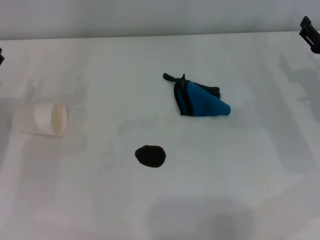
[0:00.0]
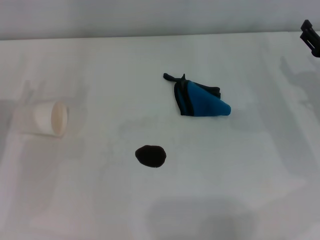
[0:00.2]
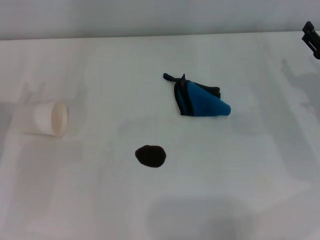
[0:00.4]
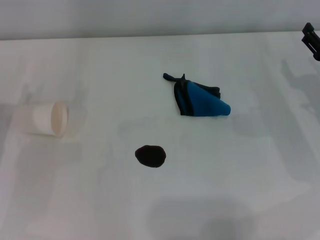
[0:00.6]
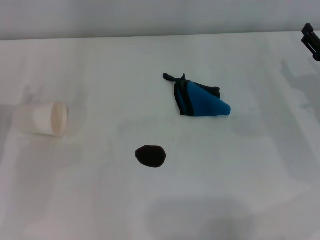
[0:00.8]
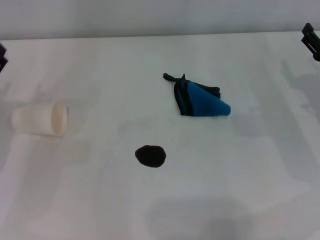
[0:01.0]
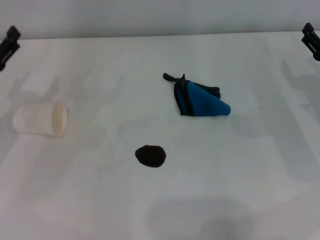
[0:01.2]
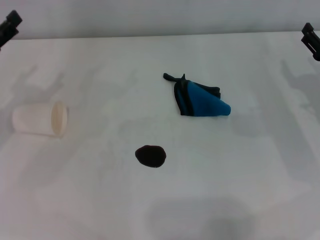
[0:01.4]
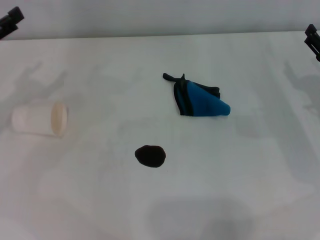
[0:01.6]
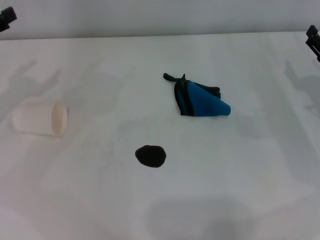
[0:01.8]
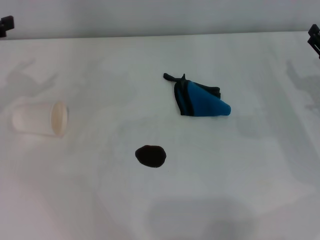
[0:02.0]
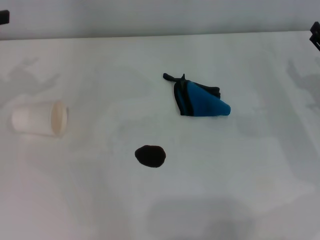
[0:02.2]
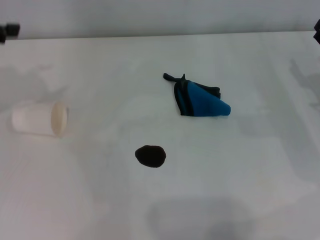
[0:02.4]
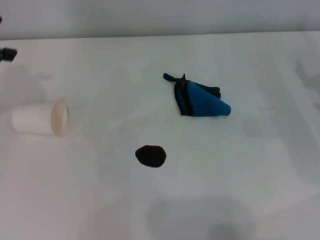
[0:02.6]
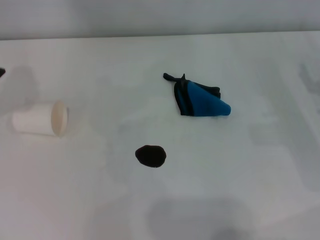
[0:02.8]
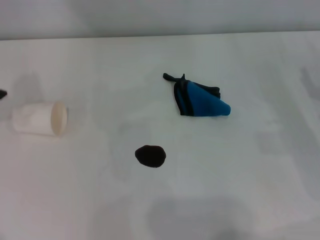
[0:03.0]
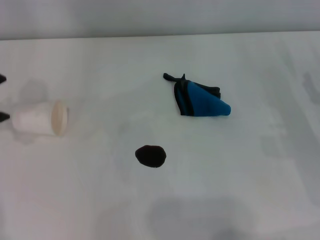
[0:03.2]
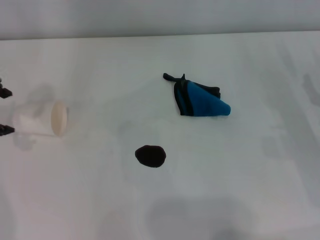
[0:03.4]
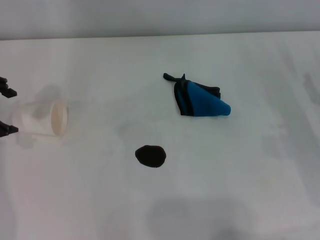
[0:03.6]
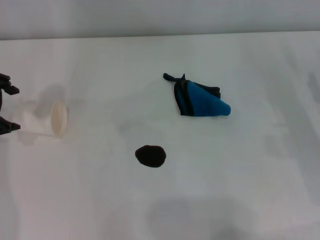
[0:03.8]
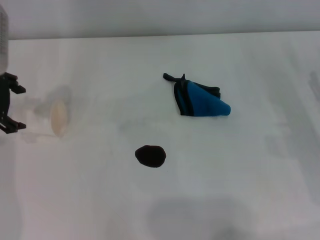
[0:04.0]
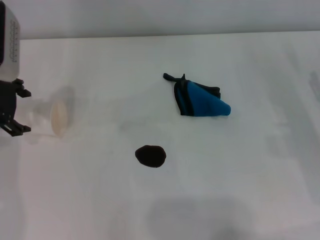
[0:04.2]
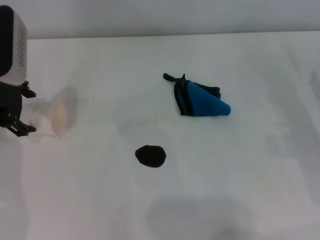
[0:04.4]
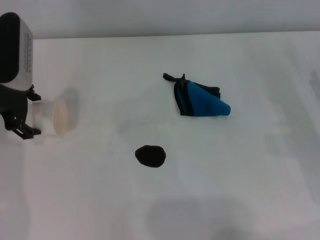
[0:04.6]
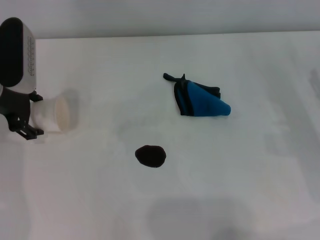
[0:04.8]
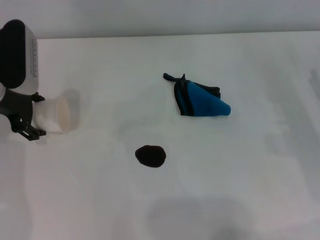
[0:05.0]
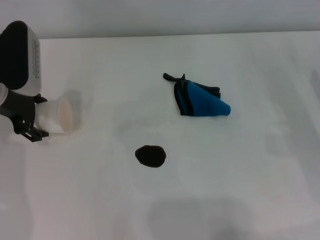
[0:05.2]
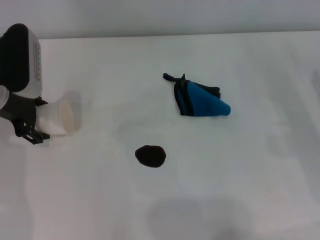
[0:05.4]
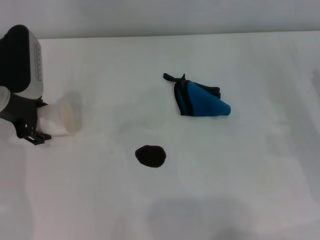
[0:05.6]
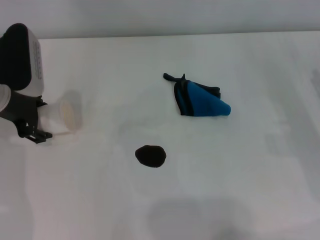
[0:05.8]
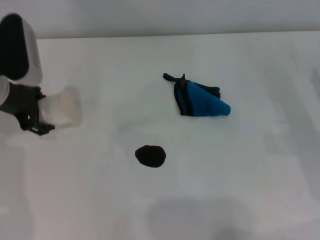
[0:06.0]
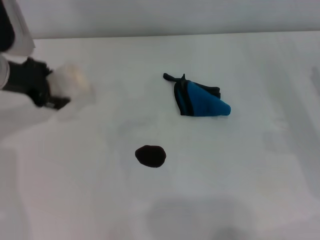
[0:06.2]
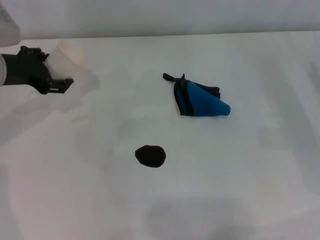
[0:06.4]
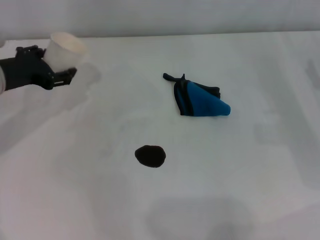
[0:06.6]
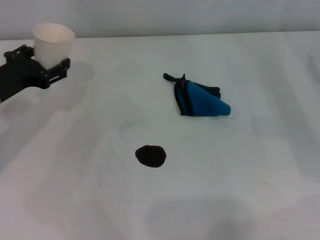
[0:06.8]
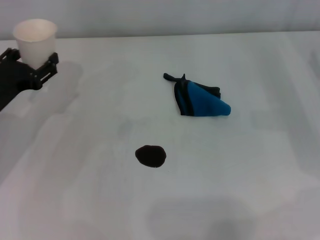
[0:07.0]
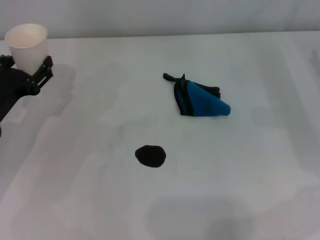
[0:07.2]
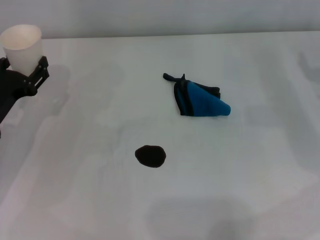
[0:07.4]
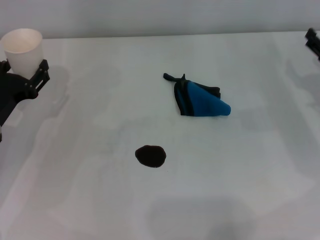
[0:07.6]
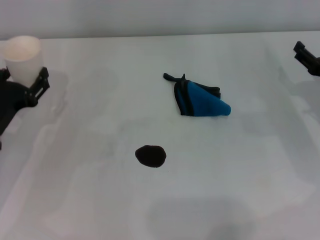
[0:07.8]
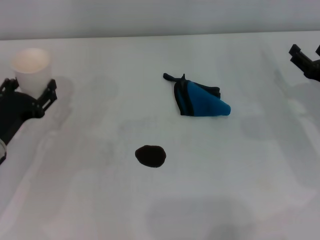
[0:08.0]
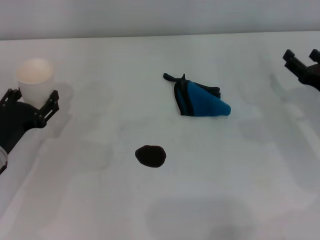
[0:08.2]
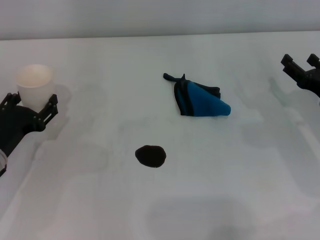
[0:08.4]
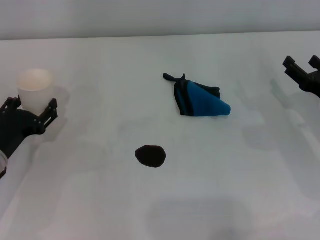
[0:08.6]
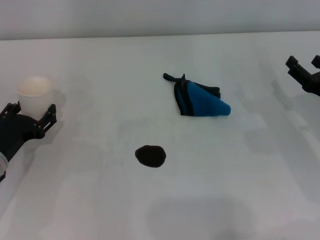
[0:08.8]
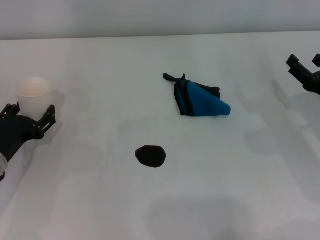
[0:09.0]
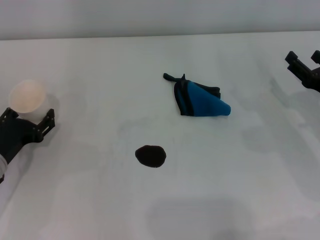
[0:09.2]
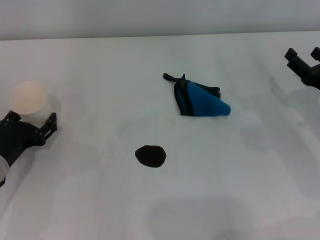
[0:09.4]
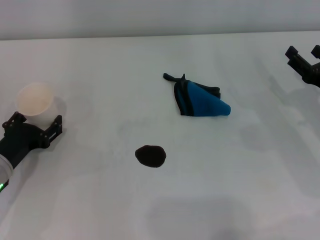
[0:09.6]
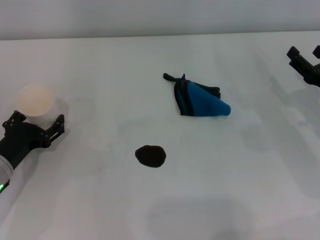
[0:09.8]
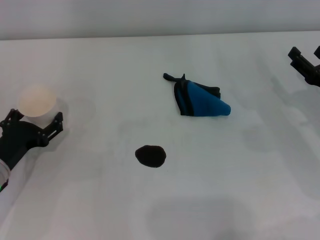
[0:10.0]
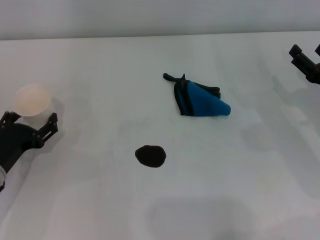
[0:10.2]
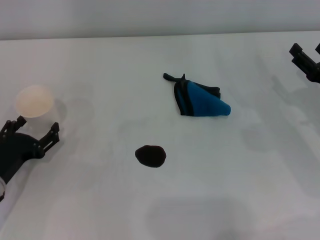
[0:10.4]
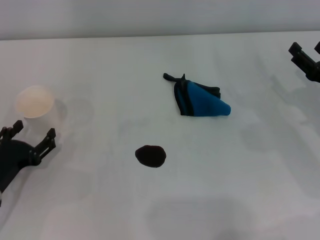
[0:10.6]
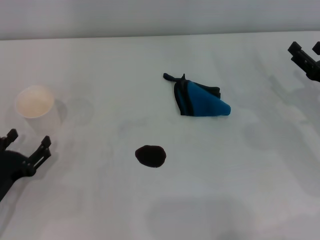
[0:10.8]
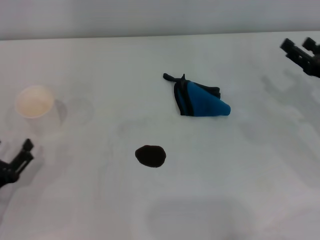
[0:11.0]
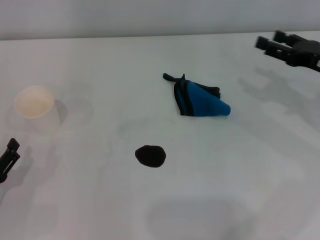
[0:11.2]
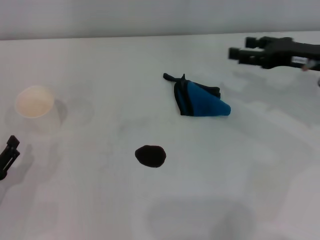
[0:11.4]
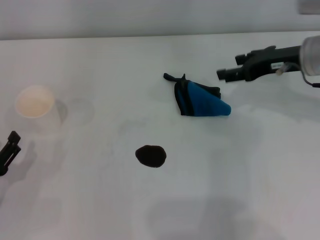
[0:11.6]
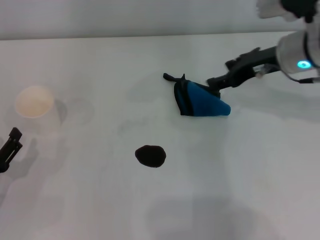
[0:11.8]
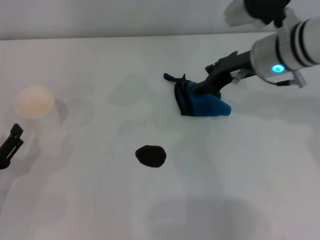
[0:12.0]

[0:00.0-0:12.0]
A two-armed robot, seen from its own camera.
Step, 0:00.0 to 0:05.6: Grasp the paper cup with the left gripper.
Step, 0:06.0 to 0:10.4: Stand the paper cup upright with the left gripper.
0:00.0 to 0:01.6: The left gripper goes some 10 cm upward.
0:01.6 to 0:03.0: The left gripper shifts about 15 cm upward.
0:03.0 to 0:04.4: The left gripper moves downward and to the right, about 10 cm.
0:04.4 to 0:06.0: The left gripper closes its fingers.
0:06.0 to 0:07.6: The left gripper shifts some 10 cm downward and backward.
0:07.6 to 0:09.0: The left gripper shifts by about 5 cm.
0:09.0 to 0:10.4: The left gripper opens up.
0:10.4 to 0:12.0: The right gripper heads to the left, upward and forward, covering some 20 cm; the left gripper is displaced backward by about 5 cm.

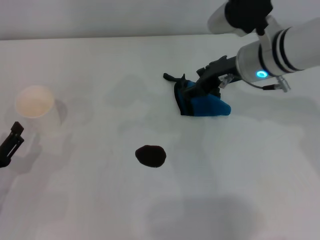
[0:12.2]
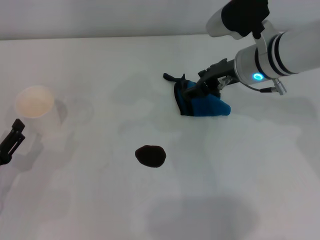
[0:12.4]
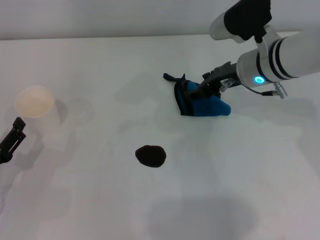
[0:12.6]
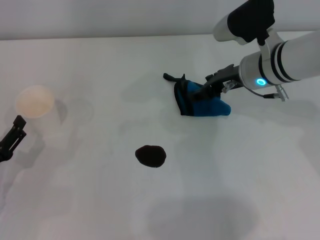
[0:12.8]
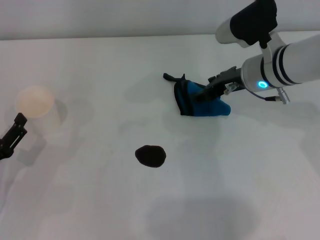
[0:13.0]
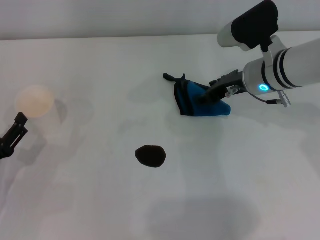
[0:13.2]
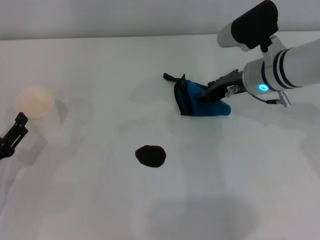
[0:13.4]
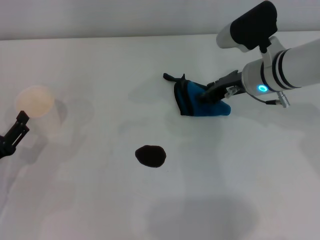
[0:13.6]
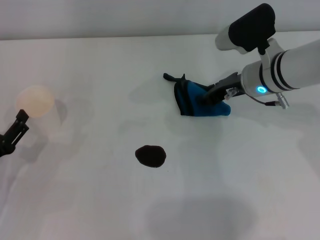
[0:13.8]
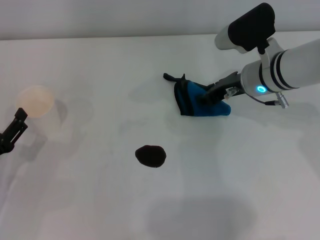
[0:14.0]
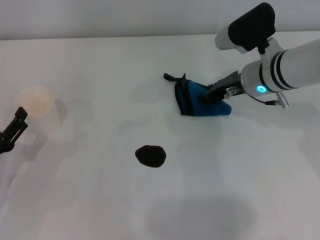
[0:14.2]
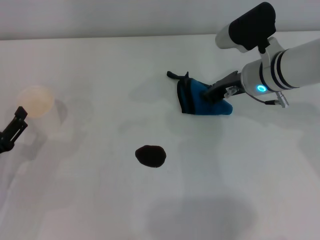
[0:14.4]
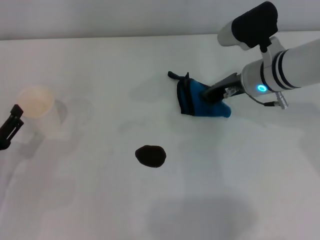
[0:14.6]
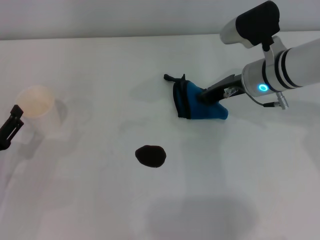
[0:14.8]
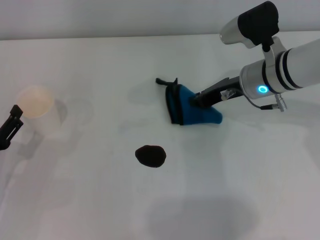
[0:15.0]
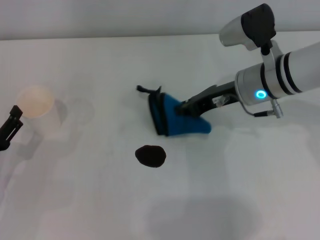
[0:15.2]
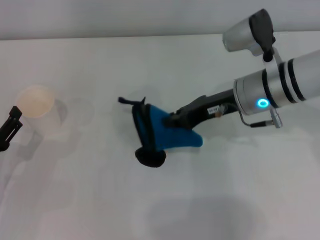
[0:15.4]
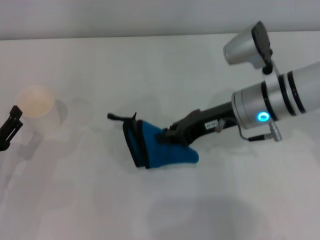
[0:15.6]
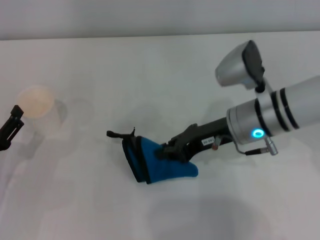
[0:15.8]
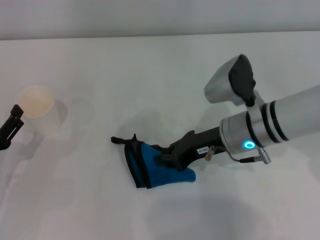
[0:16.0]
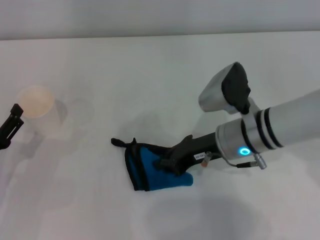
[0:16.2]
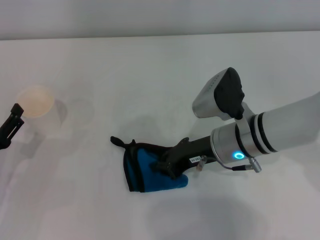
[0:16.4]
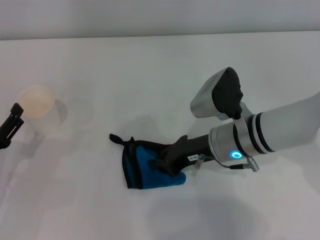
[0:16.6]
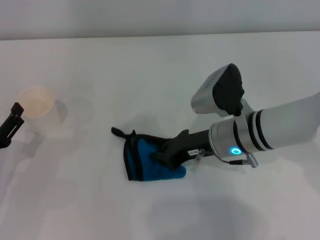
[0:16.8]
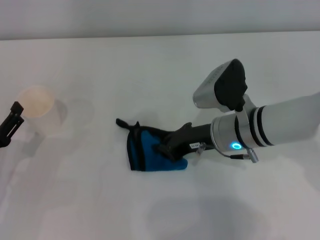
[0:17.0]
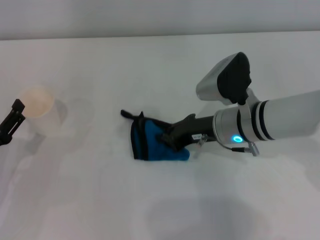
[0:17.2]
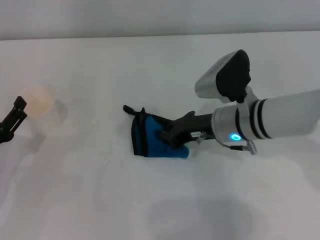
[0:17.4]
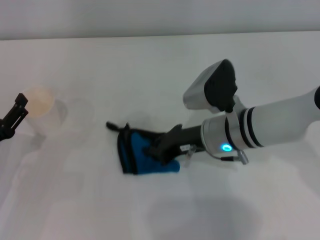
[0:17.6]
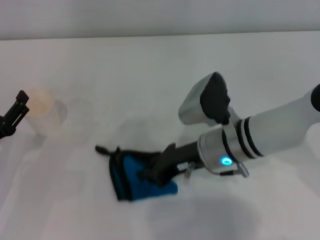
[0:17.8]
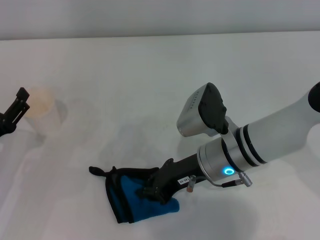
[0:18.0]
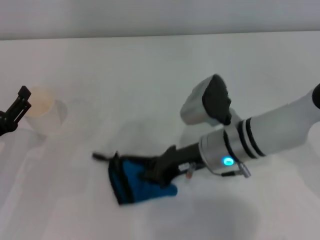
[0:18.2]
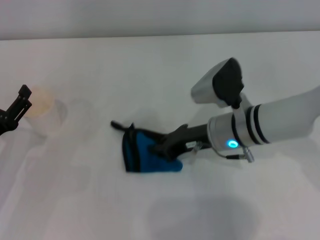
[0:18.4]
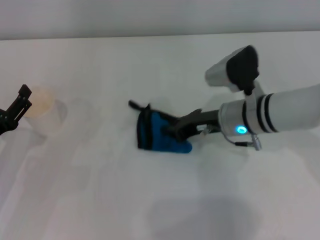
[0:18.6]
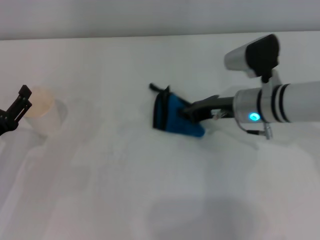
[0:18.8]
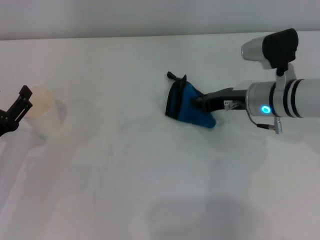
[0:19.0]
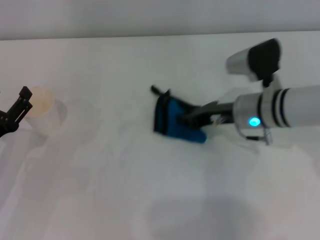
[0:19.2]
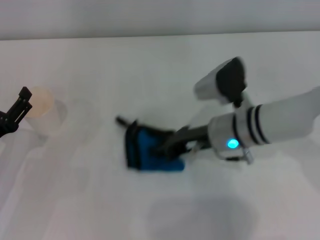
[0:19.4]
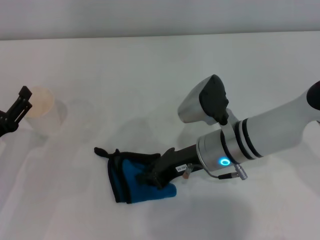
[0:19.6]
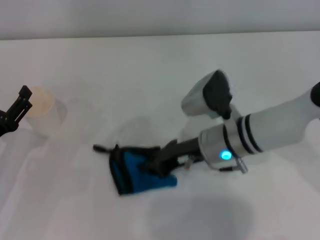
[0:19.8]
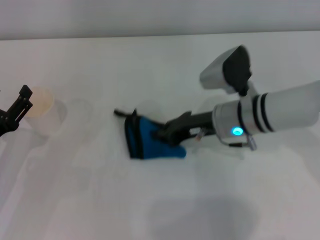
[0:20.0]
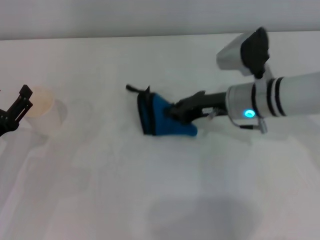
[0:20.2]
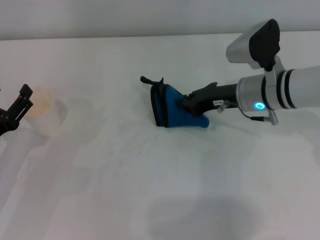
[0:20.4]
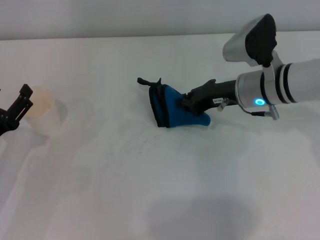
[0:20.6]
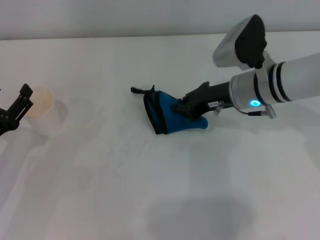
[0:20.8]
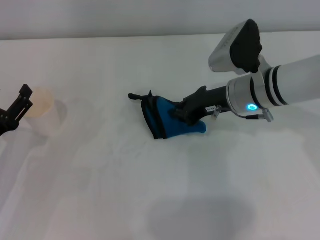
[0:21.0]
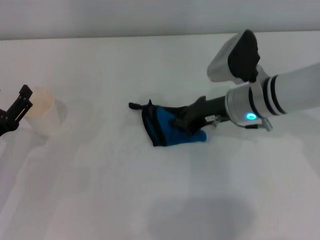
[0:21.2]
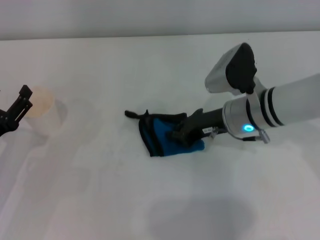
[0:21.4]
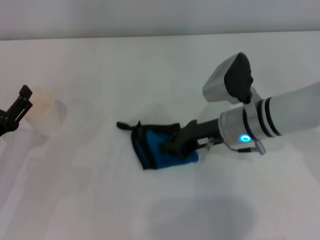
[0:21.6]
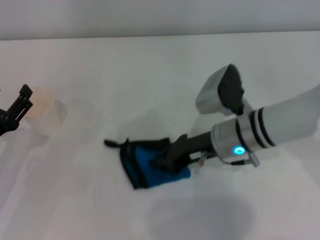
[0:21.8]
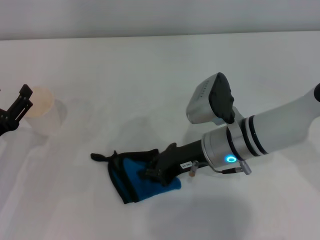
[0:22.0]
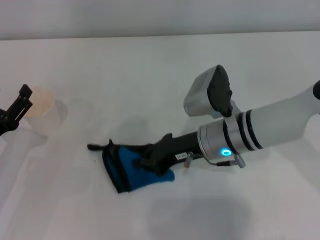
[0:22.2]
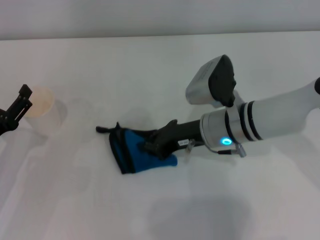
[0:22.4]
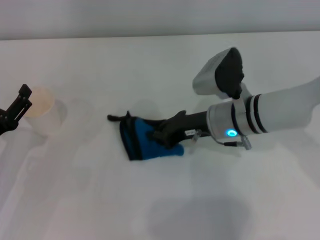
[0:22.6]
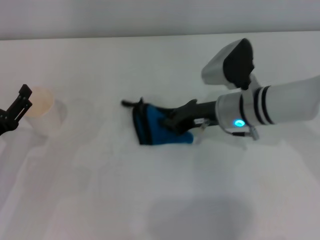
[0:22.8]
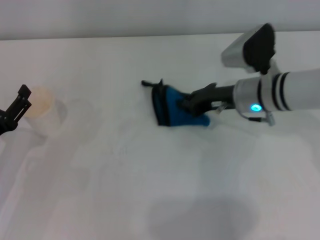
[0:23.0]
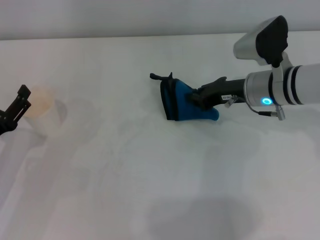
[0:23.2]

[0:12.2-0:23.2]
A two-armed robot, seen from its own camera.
Step, 0:12.2 to 0:14.4: Grasp the rag with the right gripper.
Step, 0:14.6 to 0:22.8: Wipe the stains off the table with the right gripper.
0:12.2 to 0:13.8: The right gripper ends up about 5 cm from where it was, and closes up.
0:13.8 to 0:15.4: The right gripper closes up.
0:15.4 to 0:17.0: The right gripper moves downward, approximately 5 cm.
0:17.0 to 0:18.4: The grippers move only a little.
0:18.4 to 0:20.0: The right gripper moves about 5 cm to the right and comes back.
0:20.0 to 0:21.6: The grippers move only a little.
0:21.6 to 0:23.2: The right gripper moves about 5 cm.
